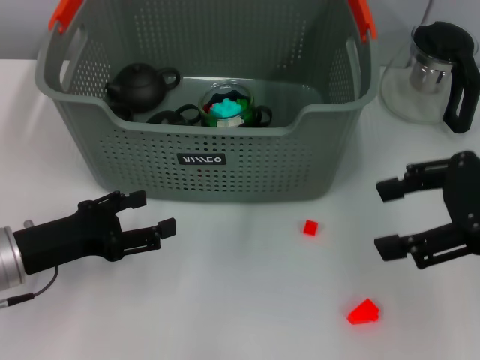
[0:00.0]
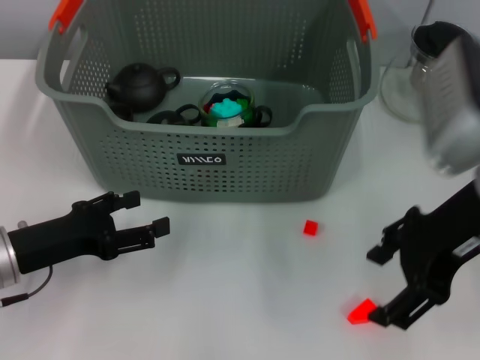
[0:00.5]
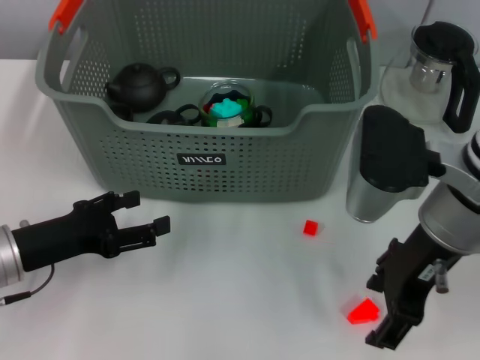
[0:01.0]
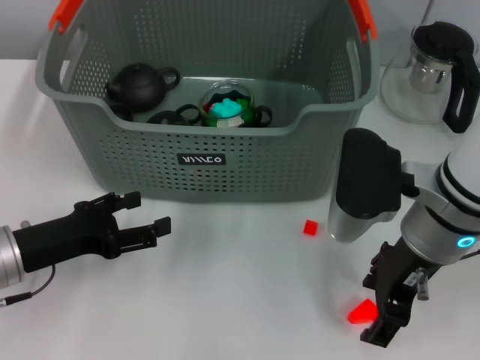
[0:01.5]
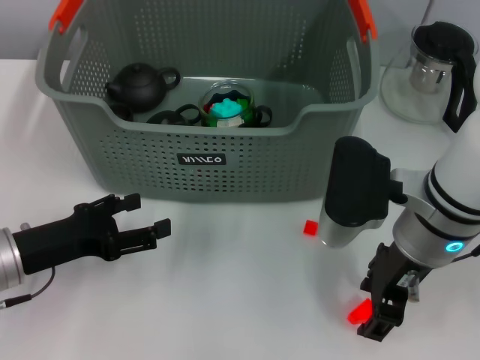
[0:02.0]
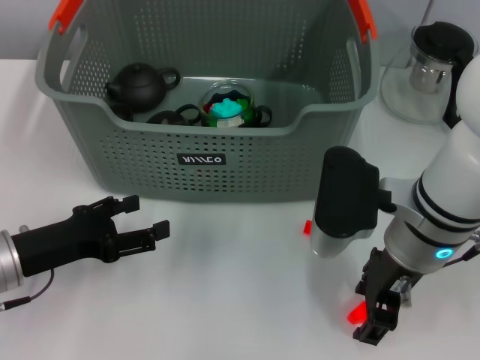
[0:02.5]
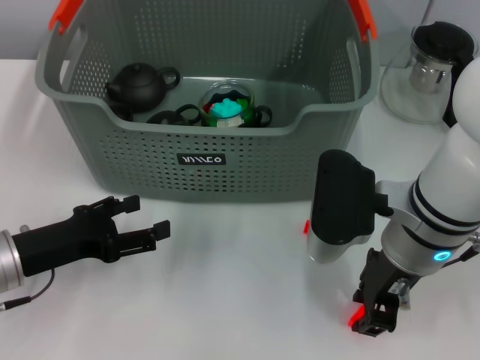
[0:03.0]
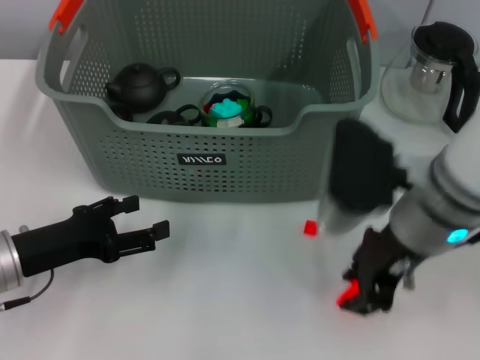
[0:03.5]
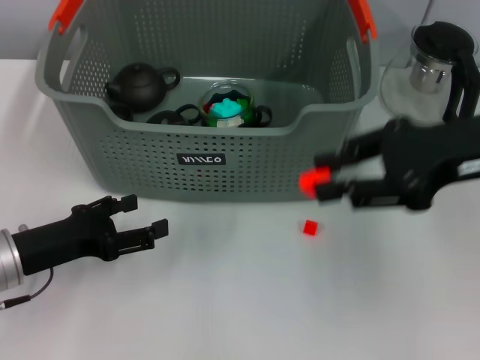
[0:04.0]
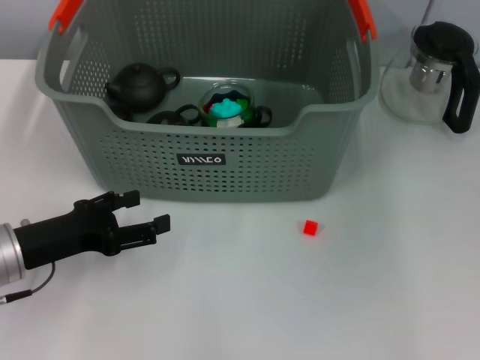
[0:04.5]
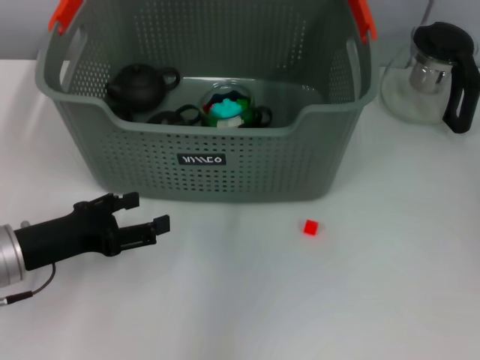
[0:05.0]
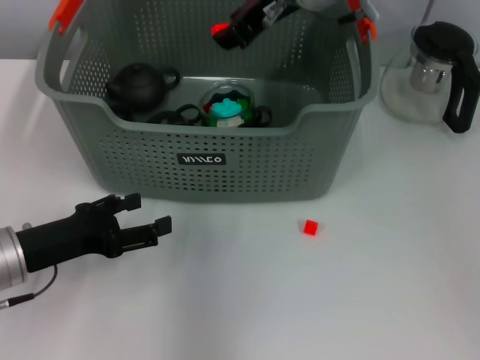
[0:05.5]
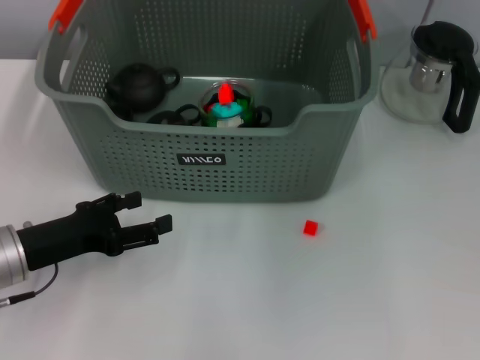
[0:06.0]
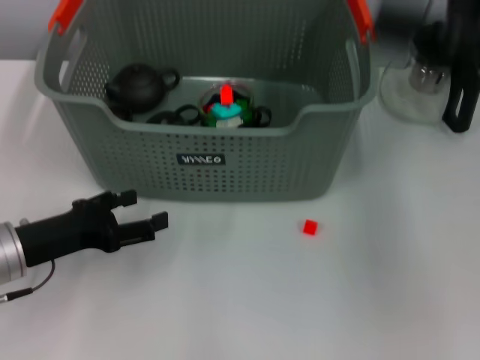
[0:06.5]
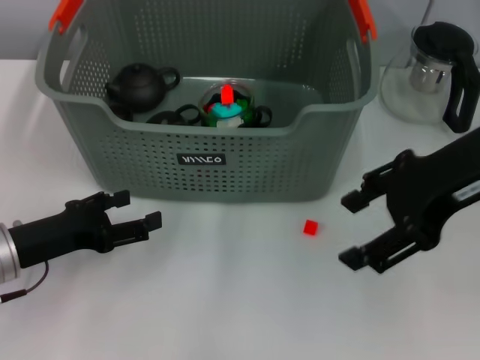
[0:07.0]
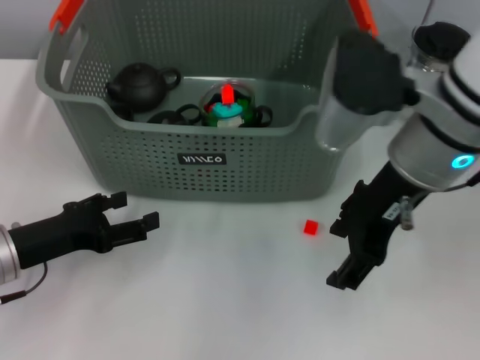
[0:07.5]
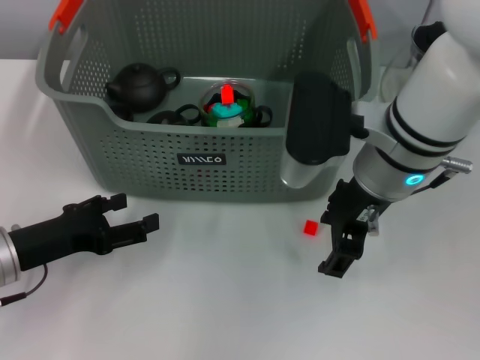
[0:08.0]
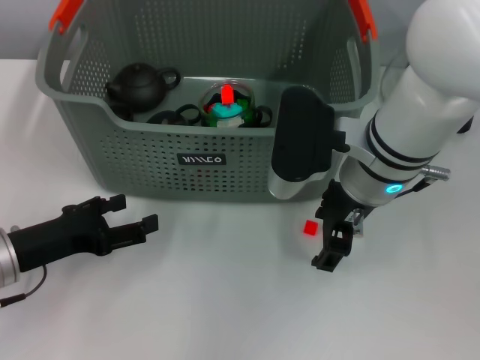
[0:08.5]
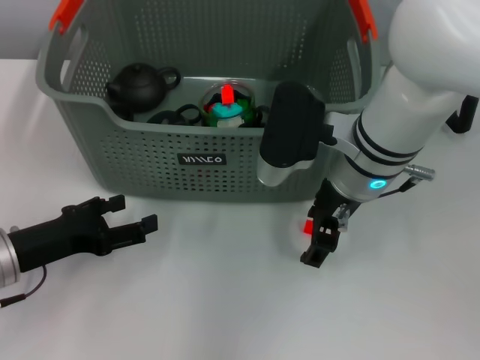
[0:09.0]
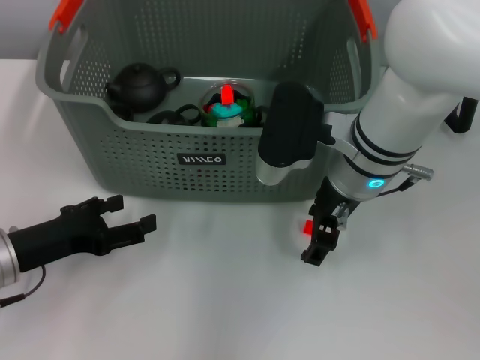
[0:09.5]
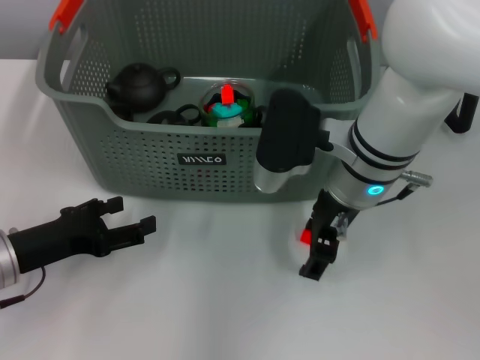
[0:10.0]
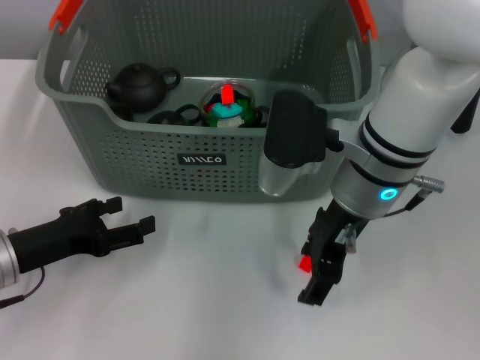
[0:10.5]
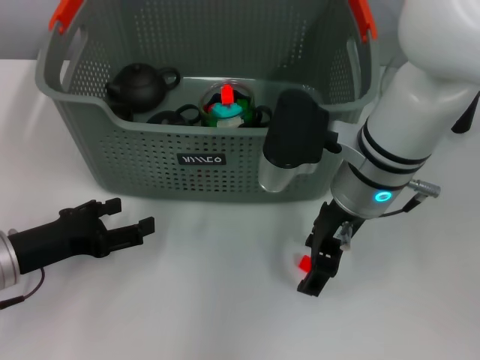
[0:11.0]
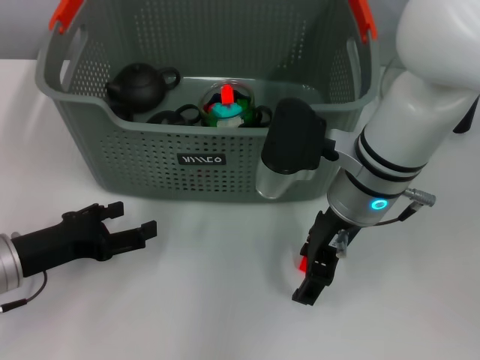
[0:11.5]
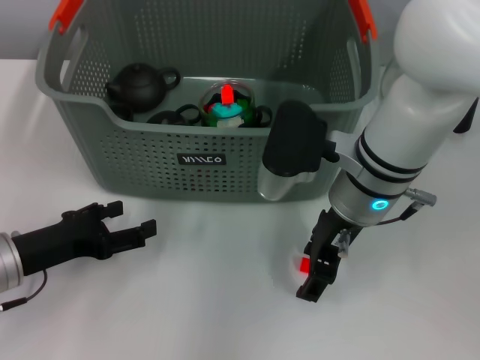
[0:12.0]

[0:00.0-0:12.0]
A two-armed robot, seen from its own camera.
Task of the whole recording: pick up the teacup on the table and place it into the storage bin, pick up the block on the table and place it into the storage bin.
Step, 0:00.0 to 0:02.5: Grasp the orange block with right gripper.
Step, 0:03.5 to 0:05.5: Place the orange block in the storage box with right gripper.
0:00.0 to 0:02.0: The right gripper is displaced to the left and downward by about 15 cm.
0:02.0 to 0:04.0: The right gripper is displaced to the right and upward by roughly 15 cm, and closes.
0:04.0 to 0:06.0: The right gripper shifts approximately 15 cm upward, to the left and forward, and opens up.
0:06.0 to 0:08.0: The right gripper travels downward by roughly 15 cm.
0:08.0 to 0:12.0: The grippers move only a little.

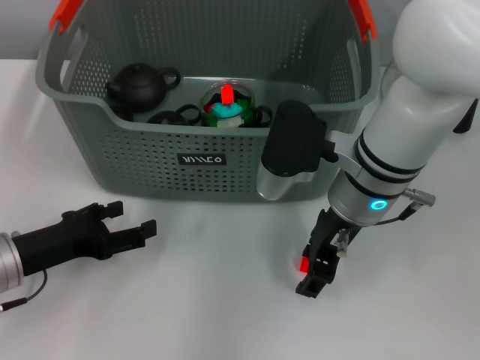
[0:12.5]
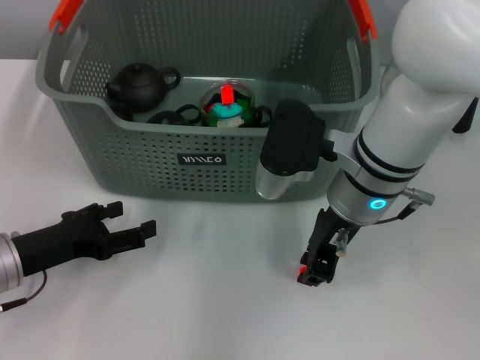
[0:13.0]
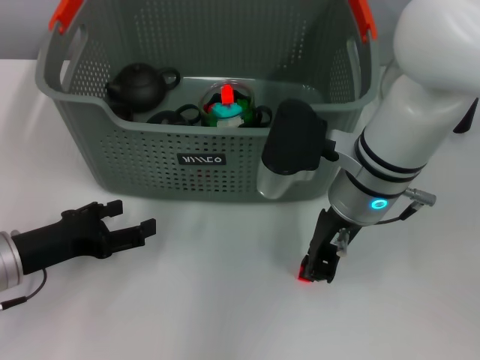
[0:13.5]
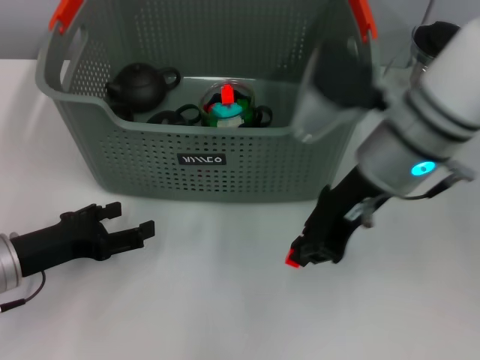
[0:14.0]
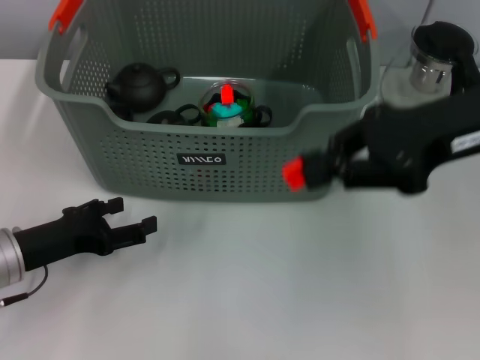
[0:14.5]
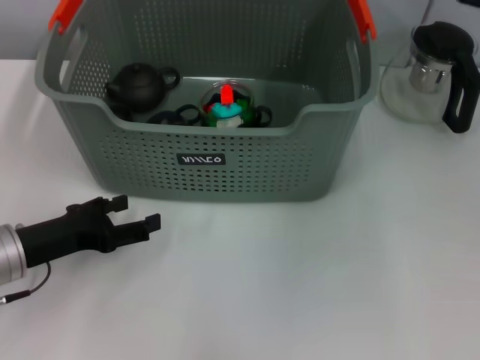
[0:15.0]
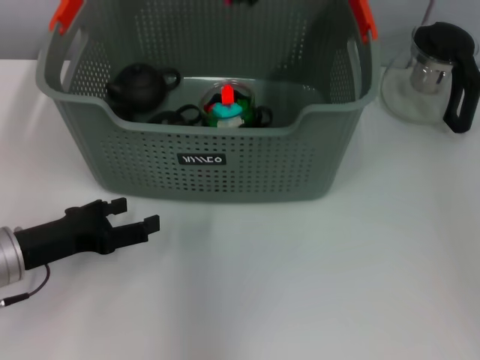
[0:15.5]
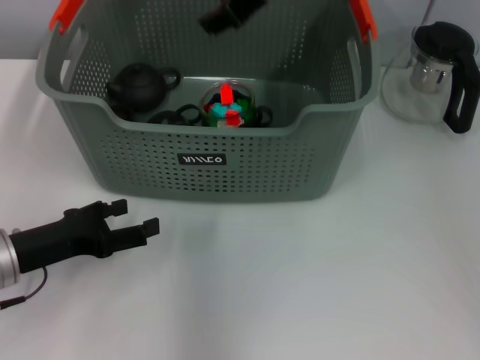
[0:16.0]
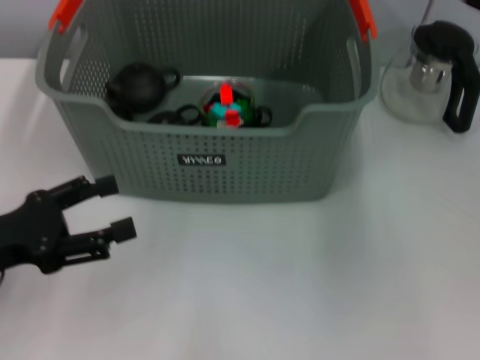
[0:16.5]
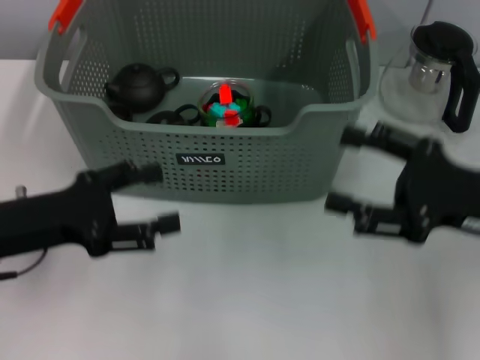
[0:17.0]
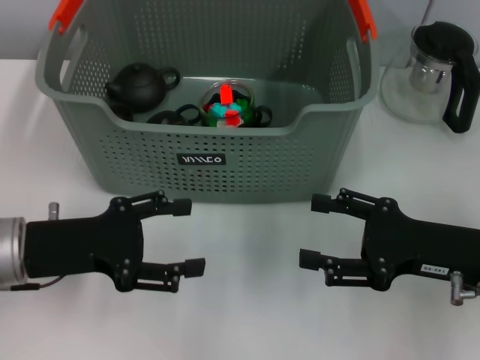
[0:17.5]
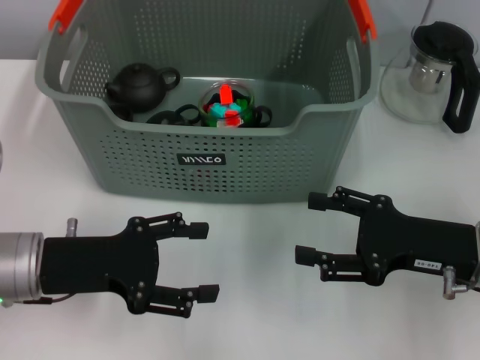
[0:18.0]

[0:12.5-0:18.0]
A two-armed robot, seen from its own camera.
Task of the whole recording: pick up the teacup on the table and place it into the storage bin, pick up the block on the table and place it into the storage bin.
Step, 0:13.5 to 0:15.5: Place the orange block in the storage box with right gripper.
0:12.5 to 0:14.5: The right gripper is displaced to the right and upward by about 15 cm, and closes.
0:14.5 to 0:16.0: The right gripper is displaced to the left and forward by about 20 cm.
0:16.0 to 0:18.0: The right gripper is displaced downward, to the right and backward by about 30 cm, and opens up; the left gripper ends up about 5 cm from where it was.
